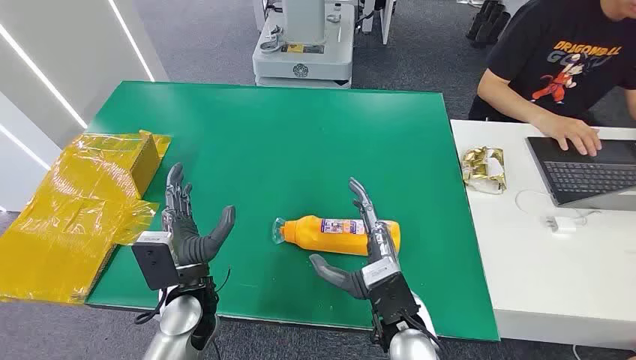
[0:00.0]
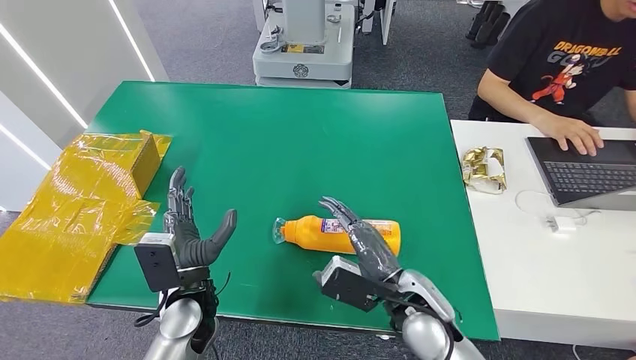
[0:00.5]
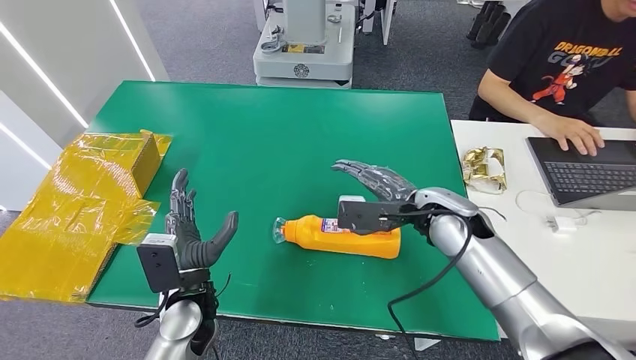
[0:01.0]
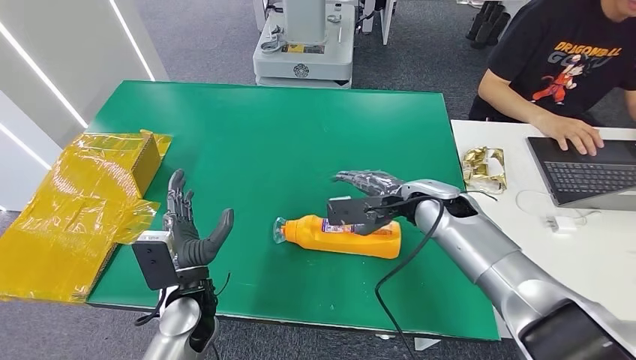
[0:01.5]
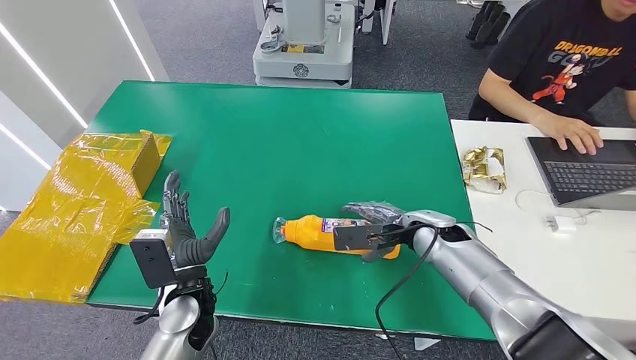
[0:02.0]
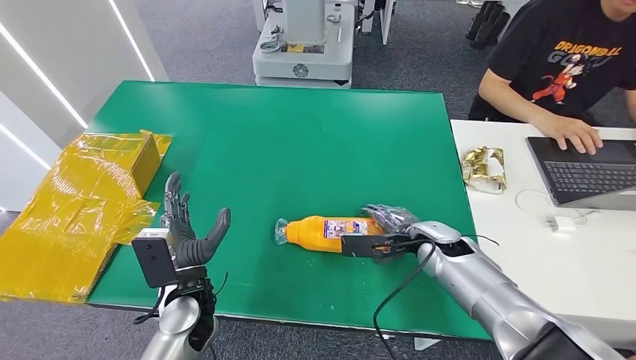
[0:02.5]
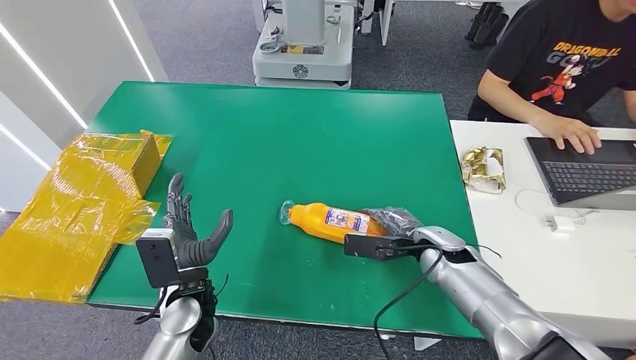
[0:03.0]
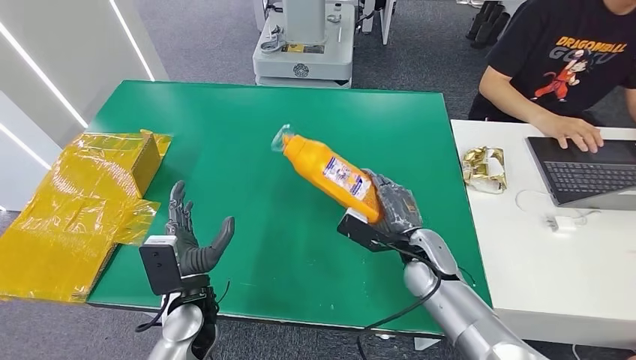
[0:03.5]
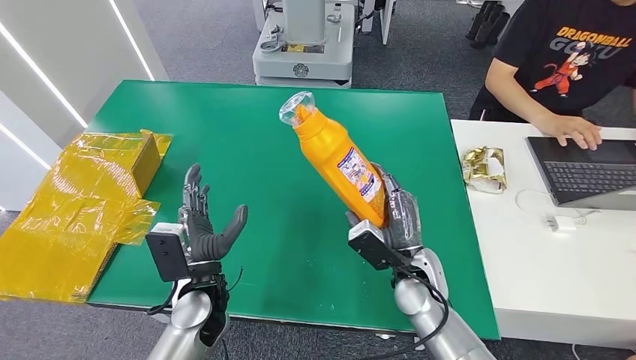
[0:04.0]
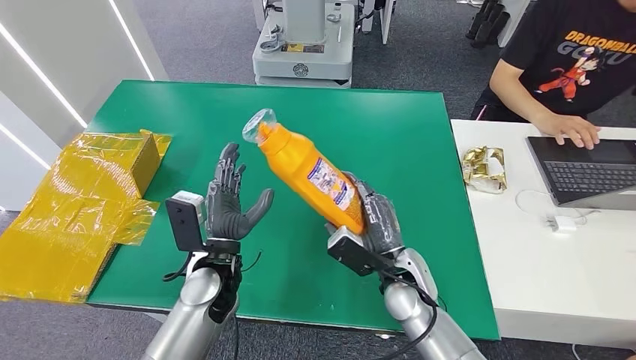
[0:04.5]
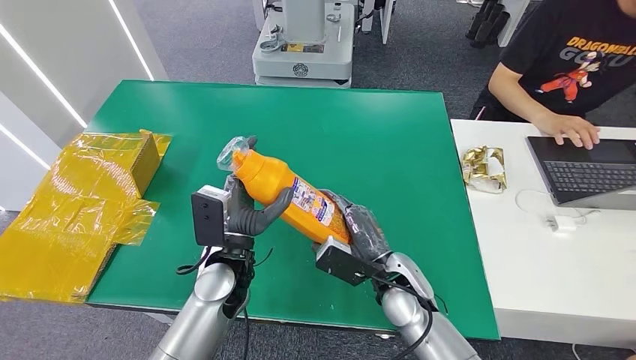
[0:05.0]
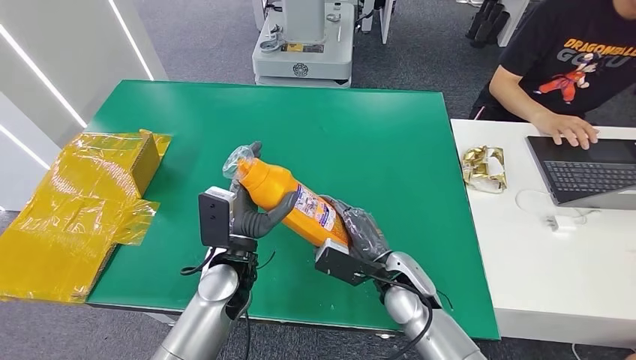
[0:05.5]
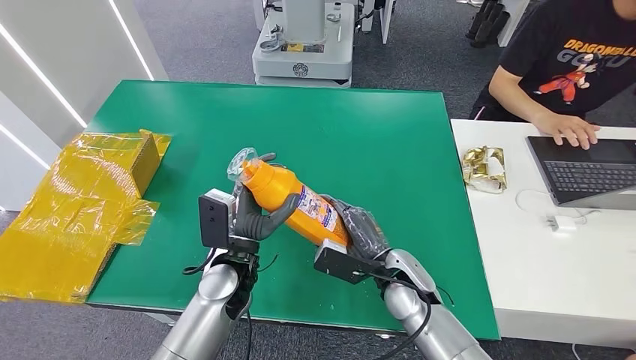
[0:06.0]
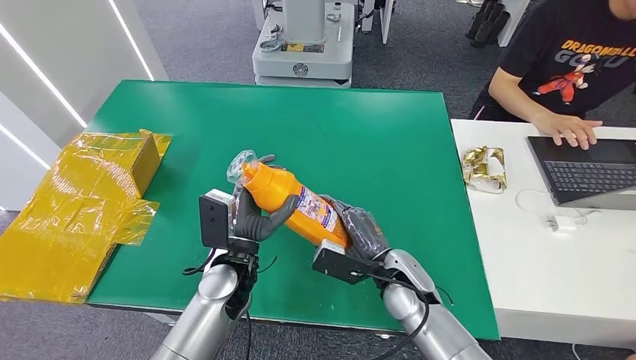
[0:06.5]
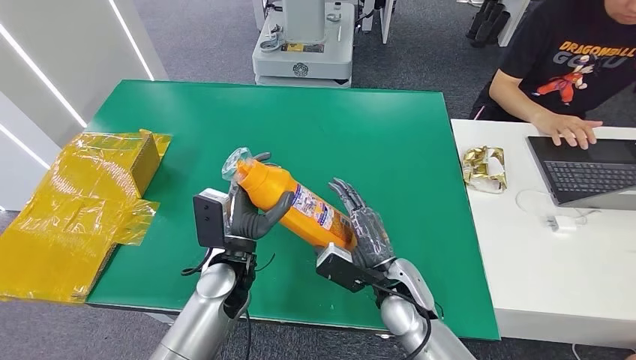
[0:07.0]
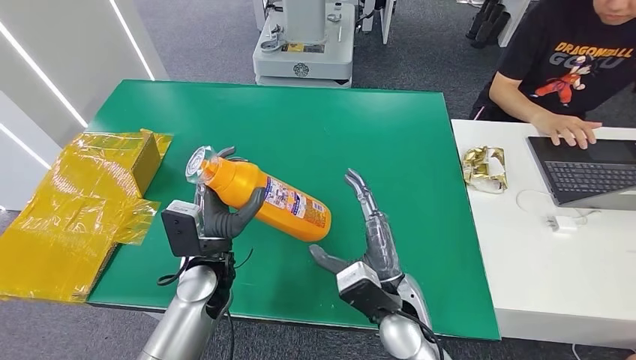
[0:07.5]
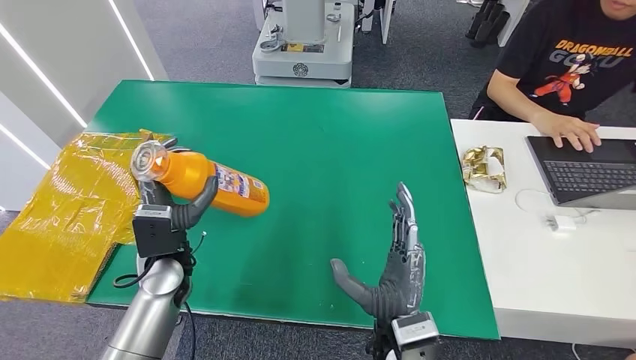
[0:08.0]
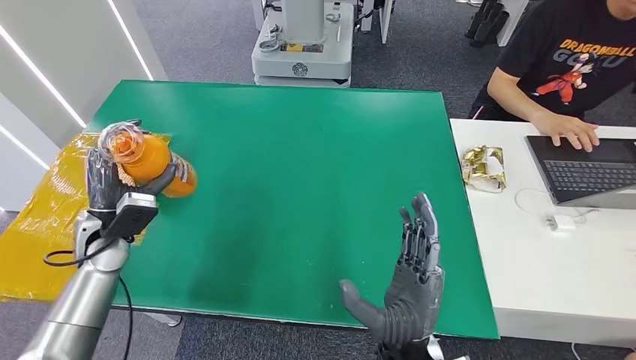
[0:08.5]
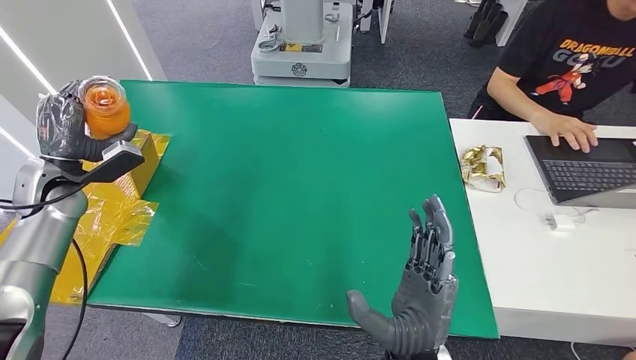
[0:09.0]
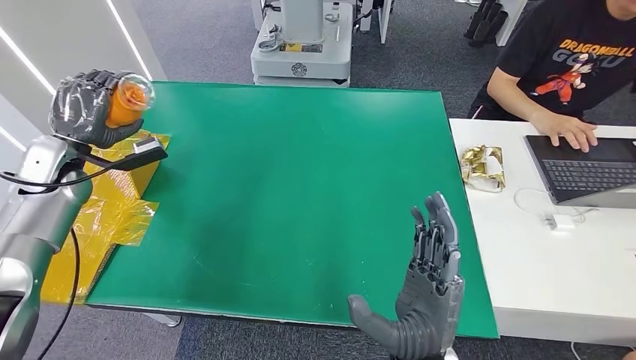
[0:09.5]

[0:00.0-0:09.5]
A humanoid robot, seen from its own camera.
Step, 0:00.0 to 0:03.5: Pick up the bottle from the table.
0:02.0 to 0:04.0: The right hand is displaced backward and downward by approximately 10 cm.
0:04.0 to 0:05.5: The left hand shifts by some 5 cm.
0:05.5 to 0:07.5: The right hand moves approximately 5 cm.

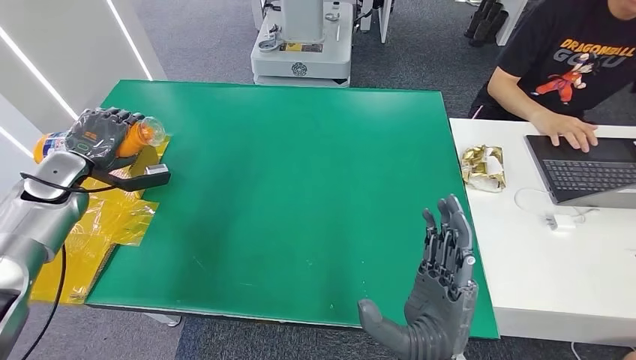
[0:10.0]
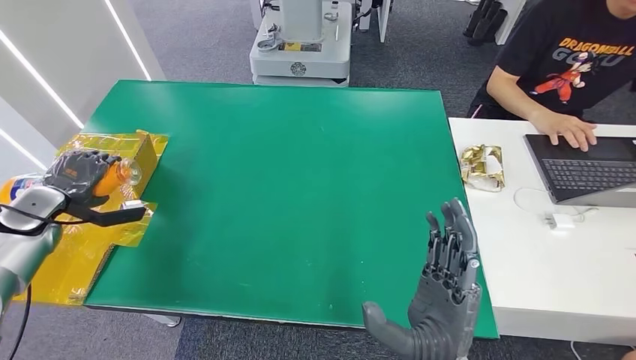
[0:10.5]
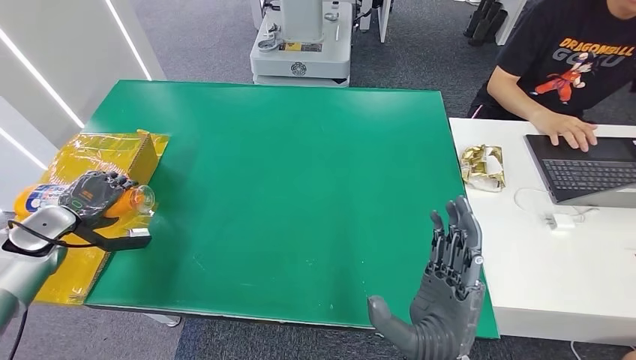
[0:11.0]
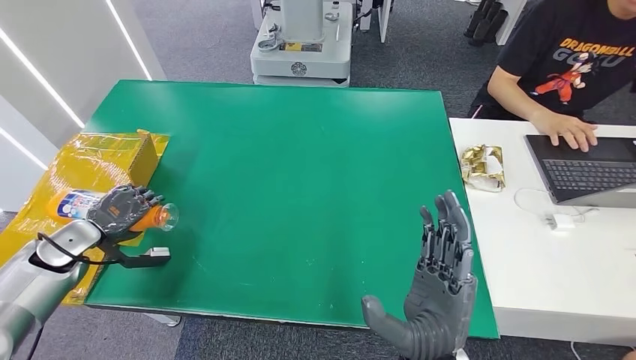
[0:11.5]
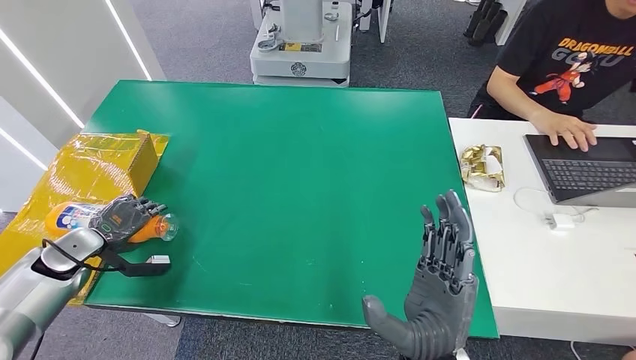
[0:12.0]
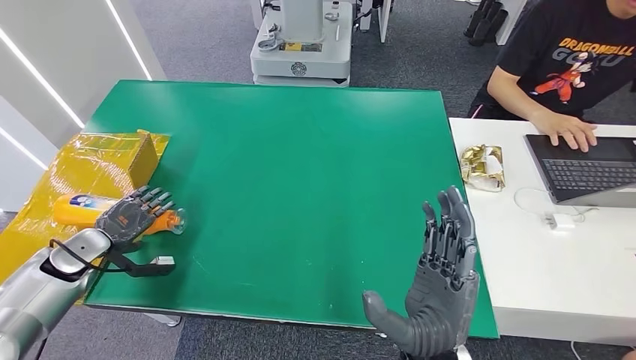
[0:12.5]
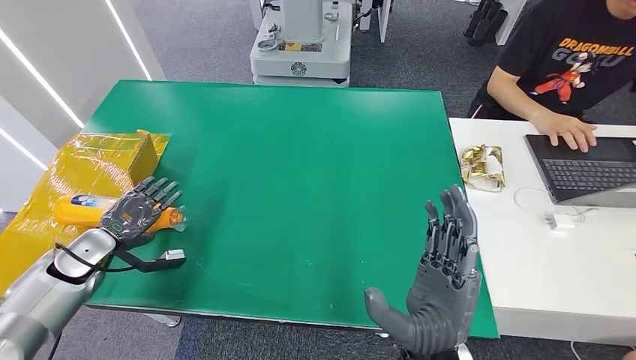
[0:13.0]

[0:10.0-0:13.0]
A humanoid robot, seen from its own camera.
Step, 0:10.0 to 0:13.0: Turn the bottle to the front side.
0:10.0 to 0:11.5: The left hand is displaced downward and backward by approximately 15 cm.
0:11.5 to 0:13.0: The hands move only a little.
